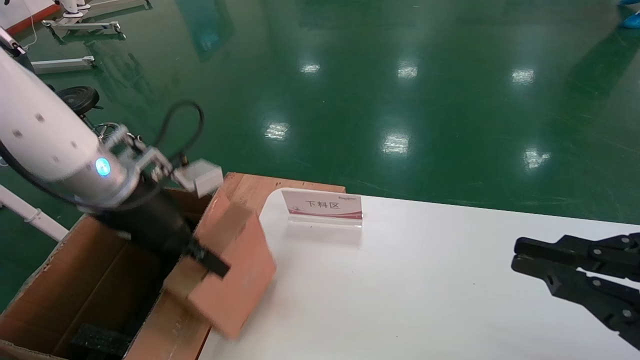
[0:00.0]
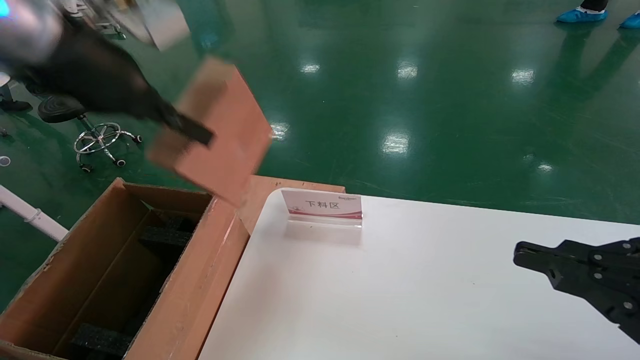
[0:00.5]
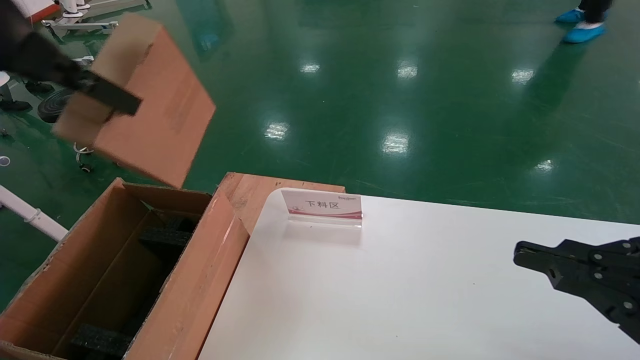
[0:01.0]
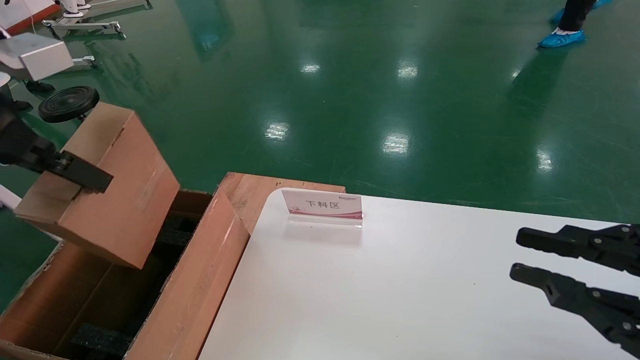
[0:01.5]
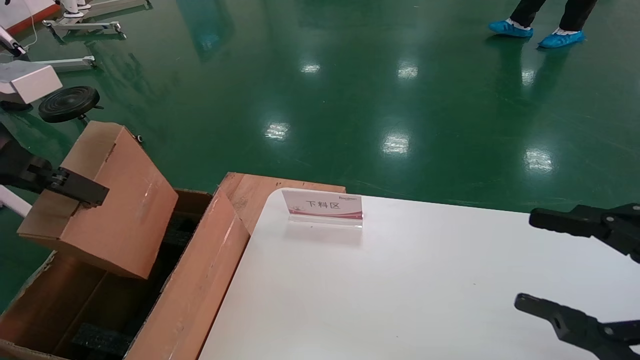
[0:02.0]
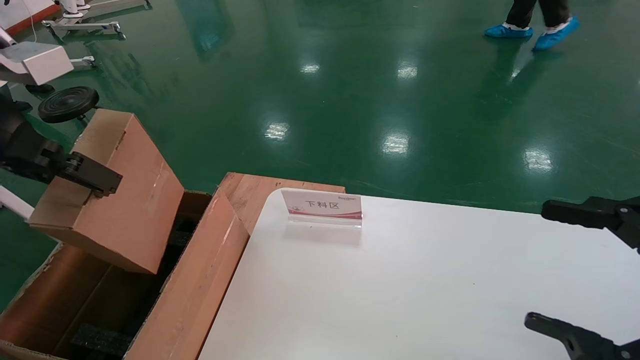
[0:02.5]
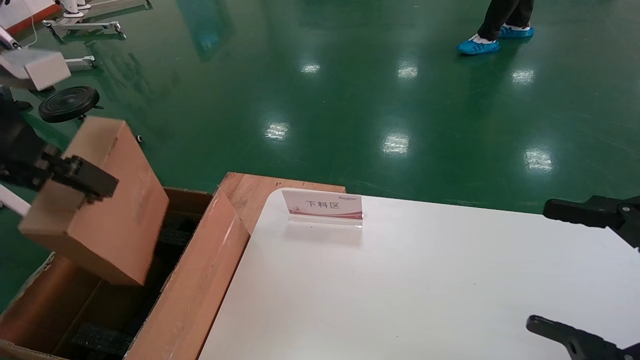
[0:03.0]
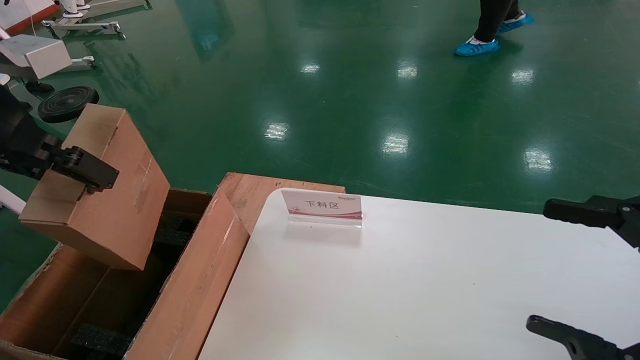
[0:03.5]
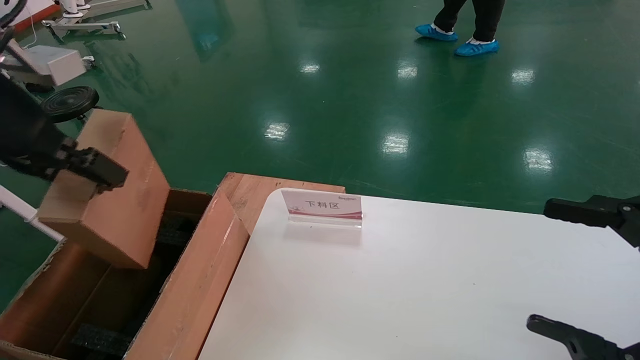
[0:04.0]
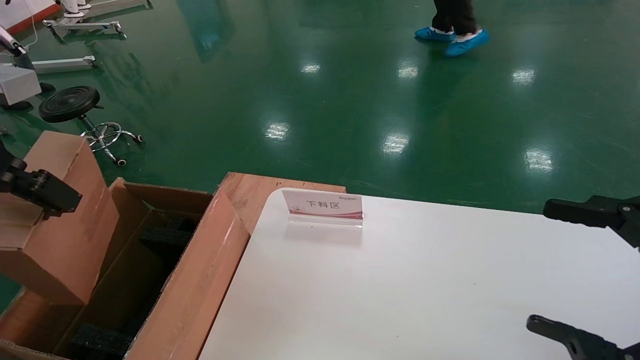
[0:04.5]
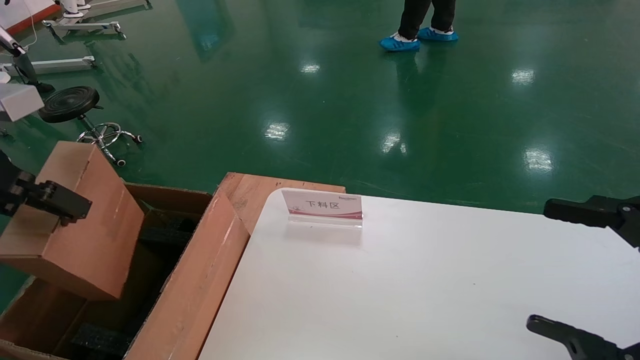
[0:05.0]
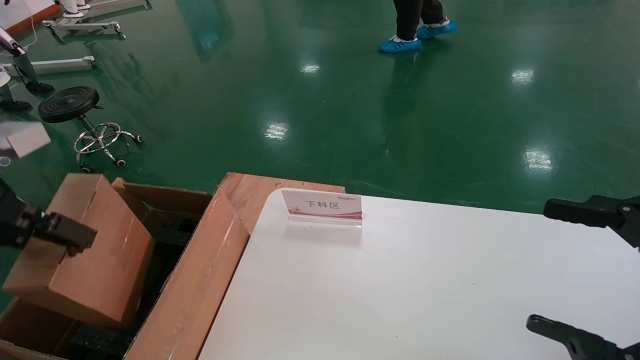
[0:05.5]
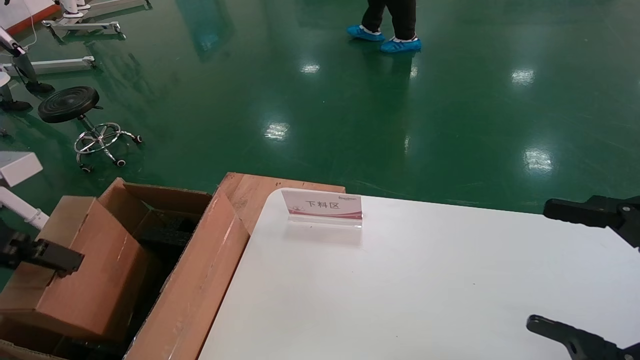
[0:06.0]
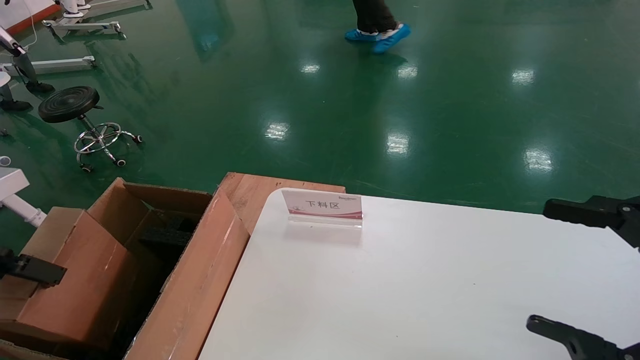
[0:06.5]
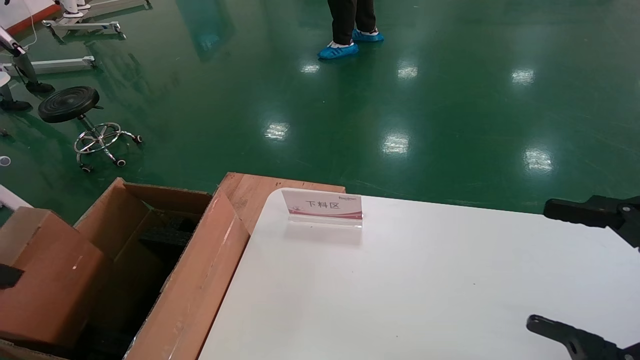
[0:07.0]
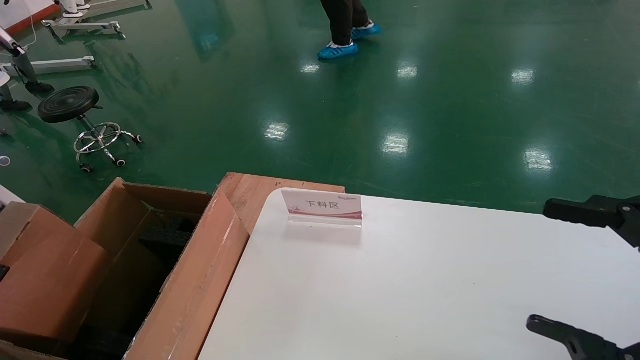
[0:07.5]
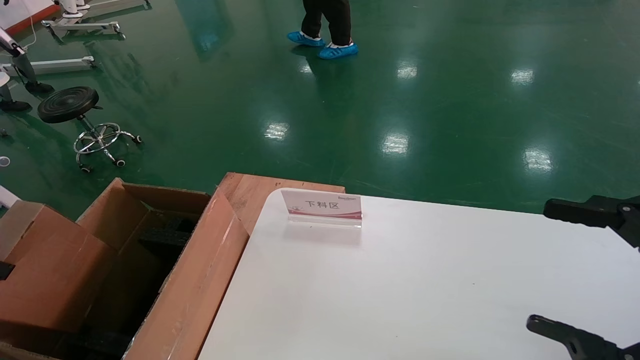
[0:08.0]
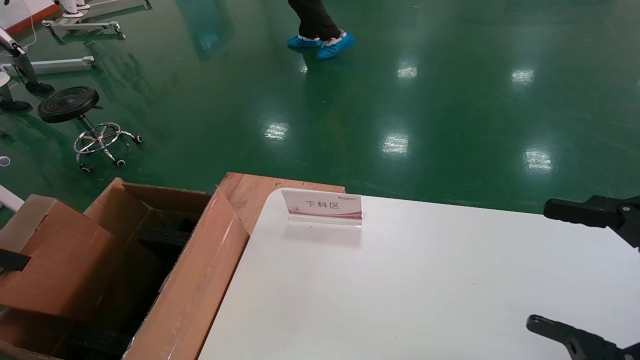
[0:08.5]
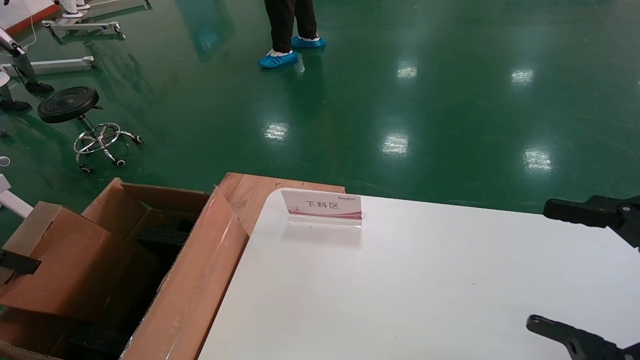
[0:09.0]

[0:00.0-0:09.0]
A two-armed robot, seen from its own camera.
Task of the whole recording: pick up the small cardboard box and load it into the large cardboard box.
0:00.0 to 0:02.0: The right gripper opens, while the left gripper is displaced backward, upward and to the left by approximately 20 cm.
0:02.0 to 0:04.5: The right gripper opens.
0:04.5 to 0:07.0: The left gripper heads to the left and downward, covering about 20 cm.
0:07.0 to 0:09.0: The left gripper goes approximately 5 cm to the left.

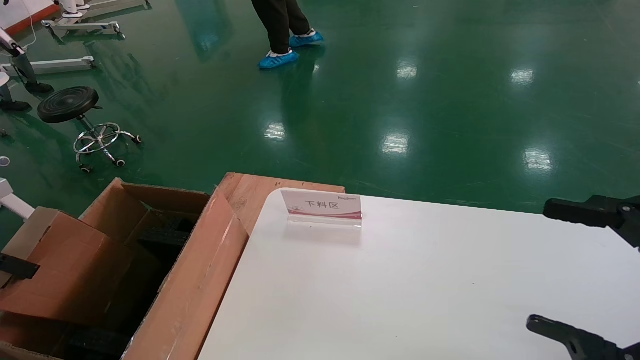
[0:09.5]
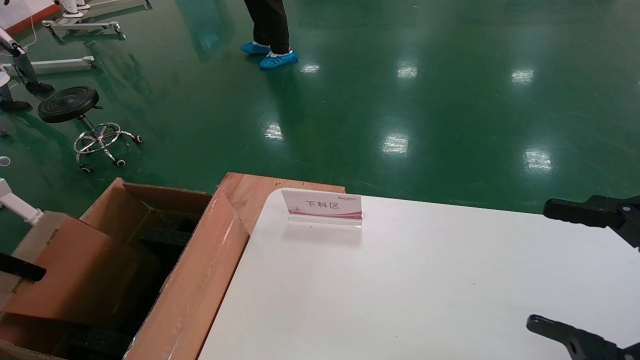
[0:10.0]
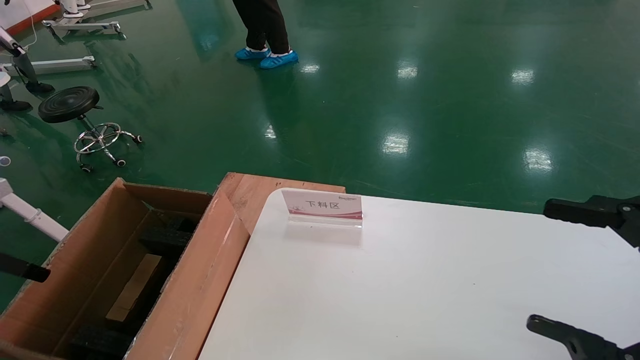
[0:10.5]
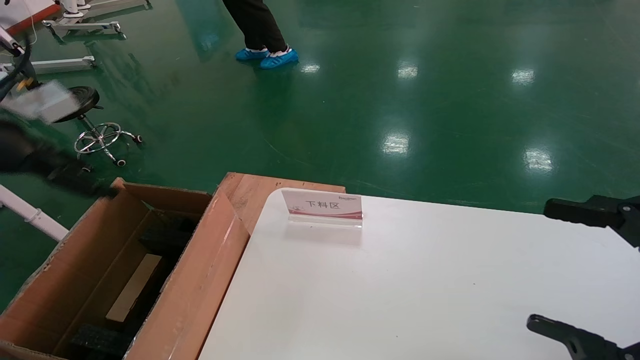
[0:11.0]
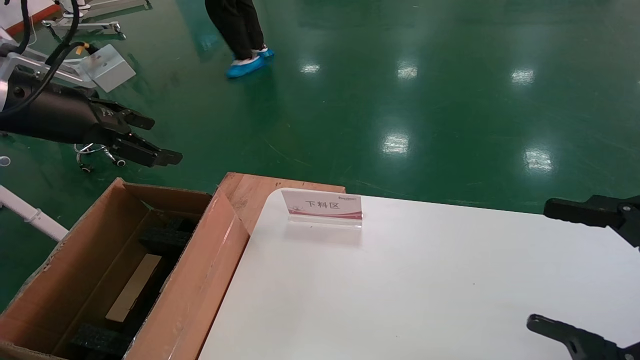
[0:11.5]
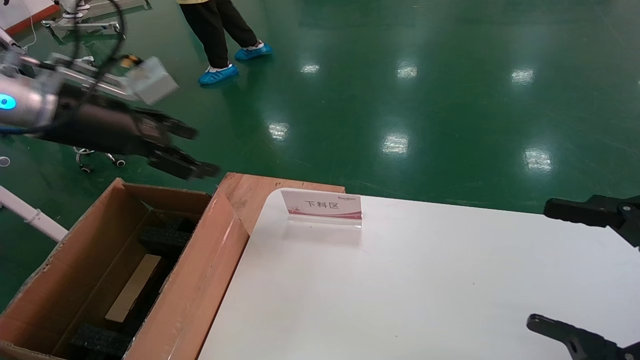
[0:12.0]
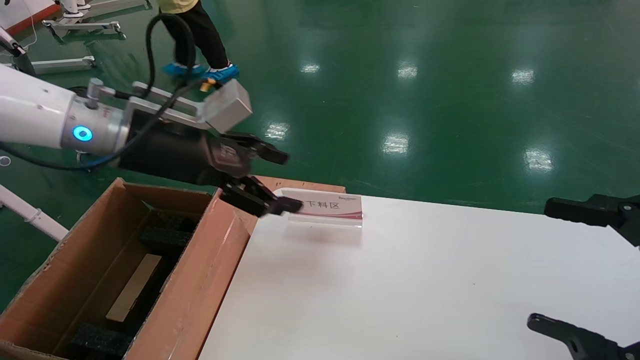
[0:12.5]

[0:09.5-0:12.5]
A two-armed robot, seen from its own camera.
Task of the whole recording: pick up the small cardboard box and load it into the large cardboard box.
0:09.5 to 0:11.0: The left gripper is displaced upward, to the right and forward by approximately 15 cm, and opens its fingers.
0:11.0 to 0:12.5: The left gripper moves to the right, about 20 cm.
